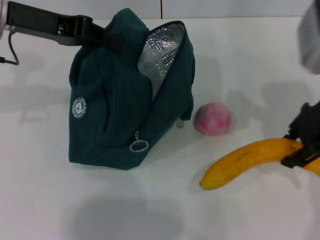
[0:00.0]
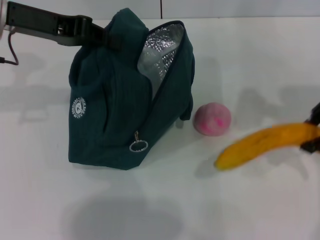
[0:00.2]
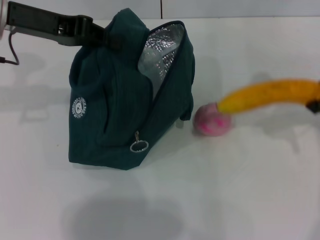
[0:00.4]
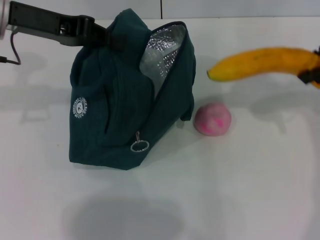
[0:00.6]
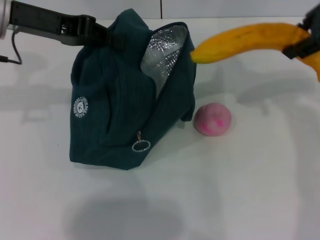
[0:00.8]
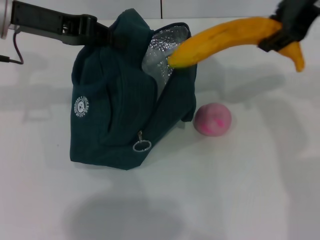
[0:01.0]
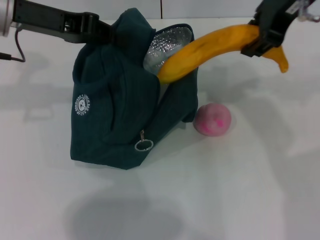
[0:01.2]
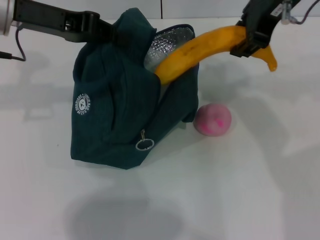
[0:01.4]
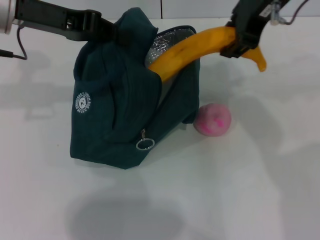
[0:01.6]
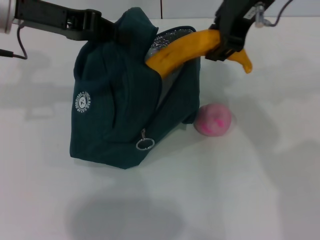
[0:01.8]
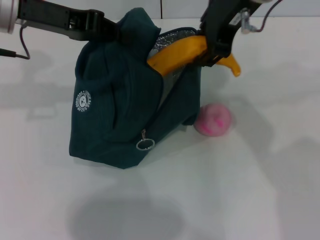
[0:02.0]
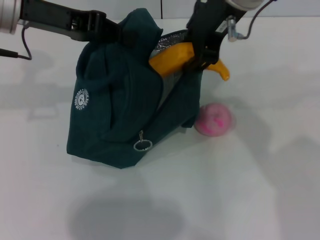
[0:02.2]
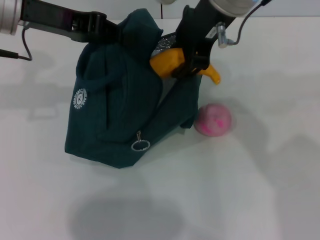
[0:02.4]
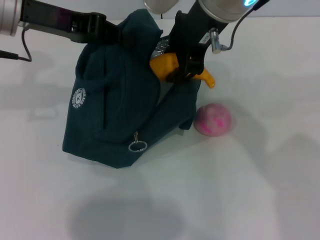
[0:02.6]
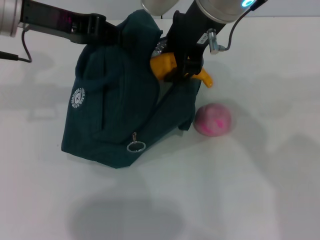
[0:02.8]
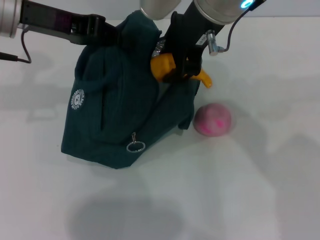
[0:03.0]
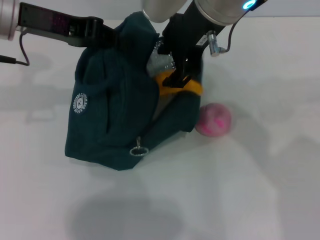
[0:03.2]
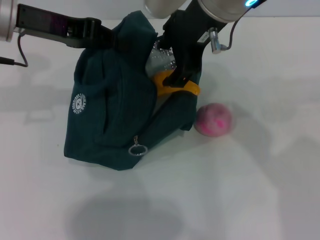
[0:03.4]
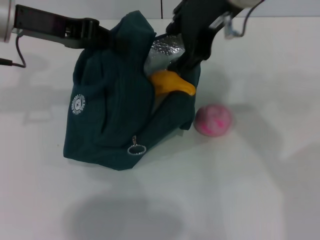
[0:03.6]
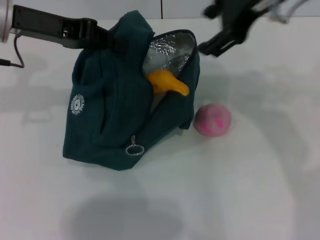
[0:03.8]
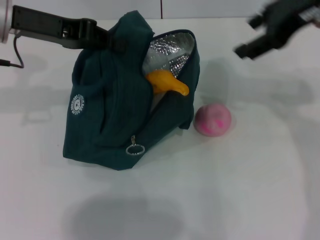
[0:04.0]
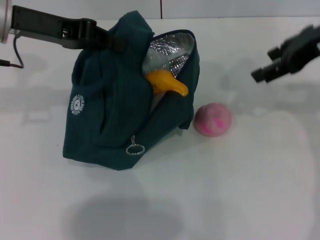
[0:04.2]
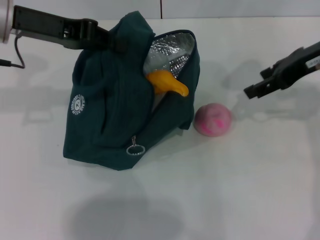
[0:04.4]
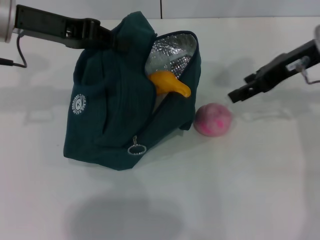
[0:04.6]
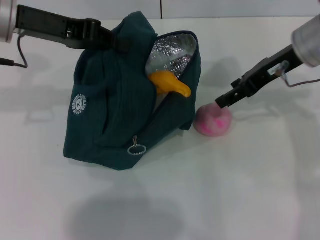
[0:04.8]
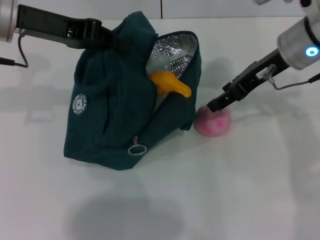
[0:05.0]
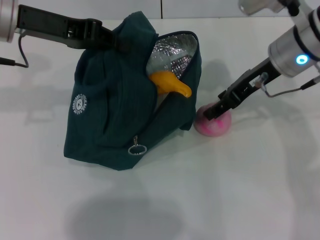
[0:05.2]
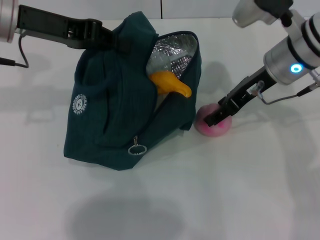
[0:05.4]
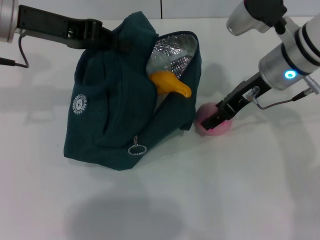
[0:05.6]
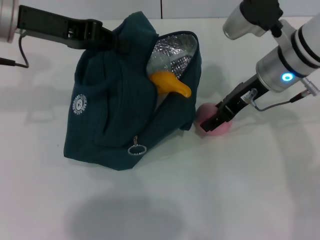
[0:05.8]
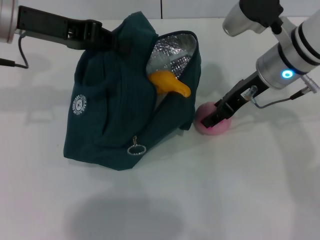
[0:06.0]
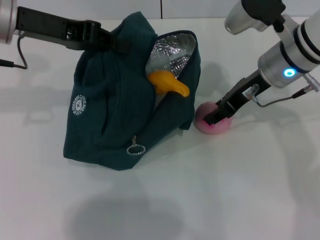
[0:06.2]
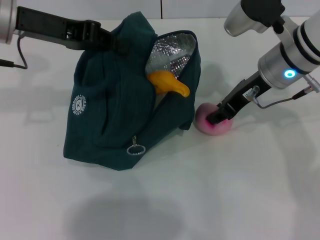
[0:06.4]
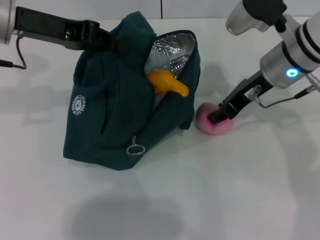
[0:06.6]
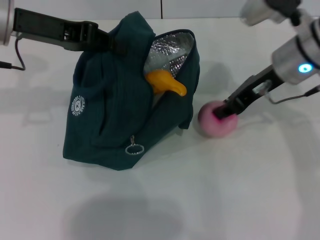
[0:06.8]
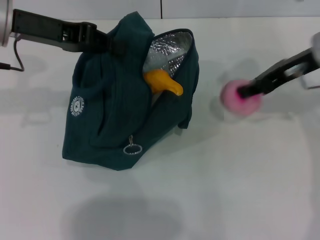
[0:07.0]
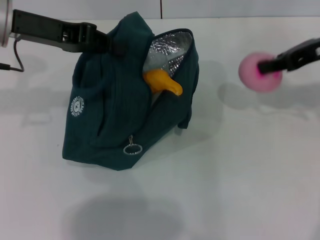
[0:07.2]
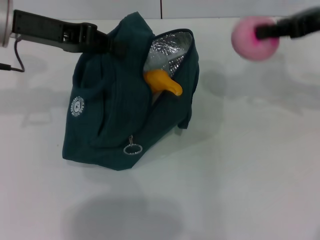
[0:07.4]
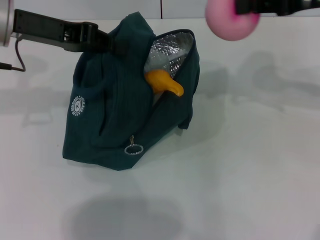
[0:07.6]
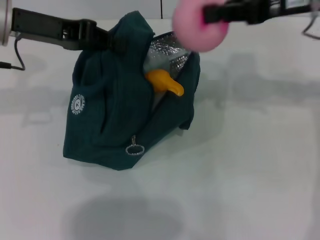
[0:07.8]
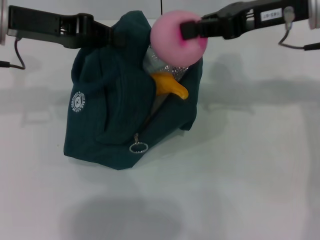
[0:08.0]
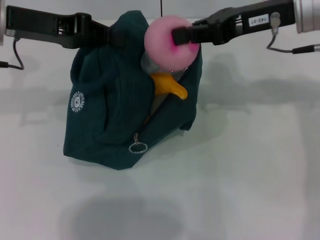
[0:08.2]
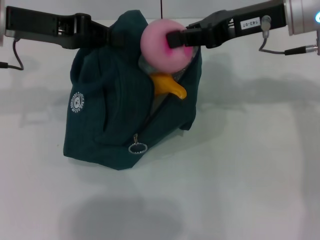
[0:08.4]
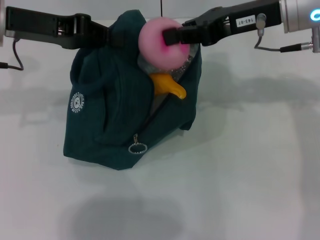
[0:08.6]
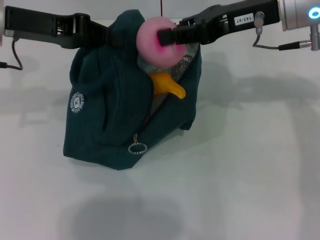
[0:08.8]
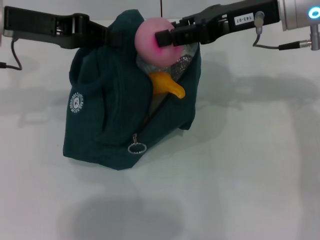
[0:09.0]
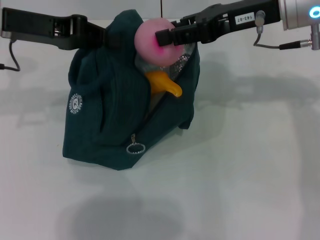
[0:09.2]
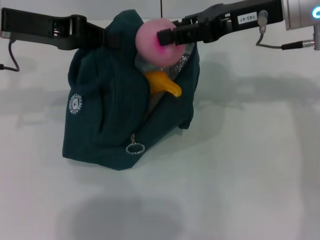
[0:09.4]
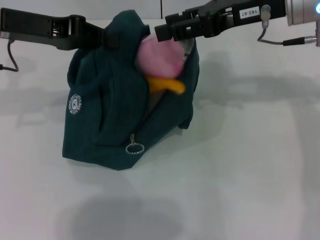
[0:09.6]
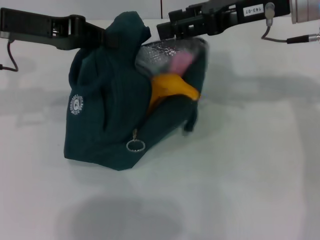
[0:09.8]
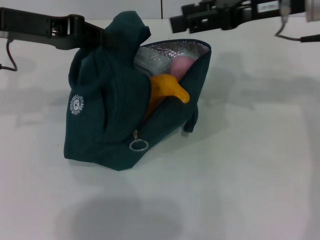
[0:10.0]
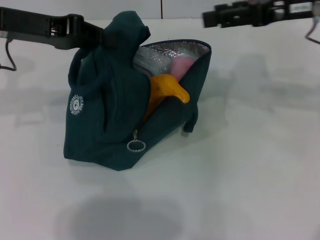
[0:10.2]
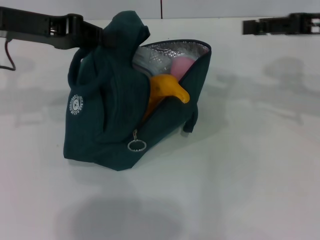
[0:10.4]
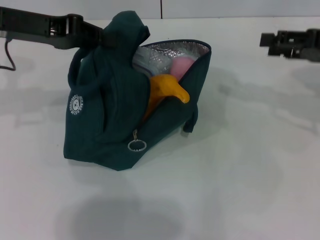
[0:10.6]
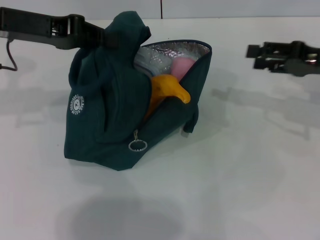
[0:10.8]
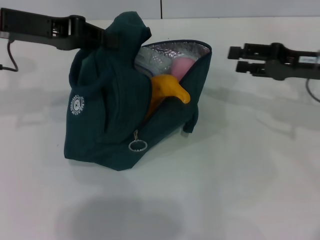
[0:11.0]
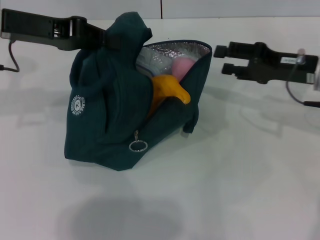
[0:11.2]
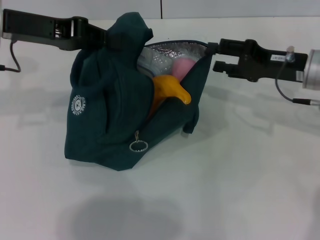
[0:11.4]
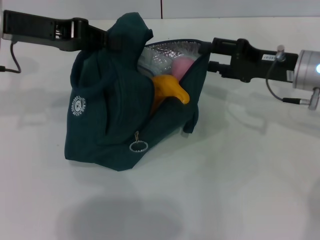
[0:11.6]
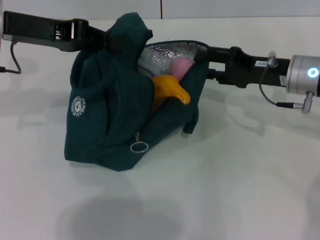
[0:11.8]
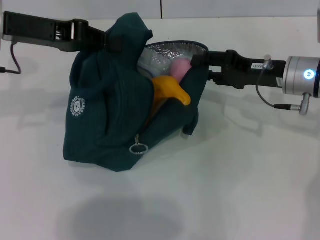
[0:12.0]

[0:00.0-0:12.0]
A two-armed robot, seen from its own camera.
Step, 0:00.0 to 0:03.4: Put the banana into the lunch bag with your right hand.
Step, 0:03.6 to 0:06.4: Grab the peach with your right hand.
0:00.0 to 0:01.6: The right gripper heads upward and to the left, covering some 15 cm.
0:01.6 to 0:03.0: The right gripper travels to the left by about 5 cm.
0:03.0 to 0:04.4: The right gripper is displaced to the right by roughly 20 cm.
0:04.4 to 0:06.0: The right gripper is displaced to the left and downward by about 10 cm.
0:06.0 to 0:07.6: The right gripper travels upward and to the right by about 15 cm, and closes.
0:07.6 to 0:09.0: The right gripper goes roughly 10 cm to the left.
0:09.0 to 0:10.4: The right gripper shifts some 10 cm to the right, and opens.
0:10.4 to 0:12.0: The right gripper heads downward and to the left, covering roughly 15 cm.

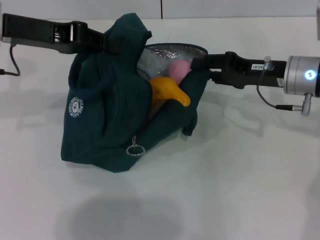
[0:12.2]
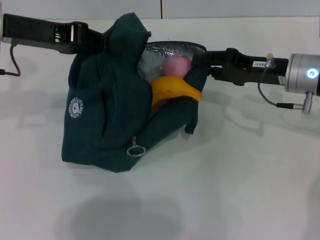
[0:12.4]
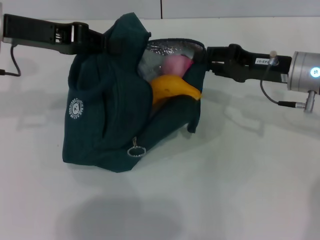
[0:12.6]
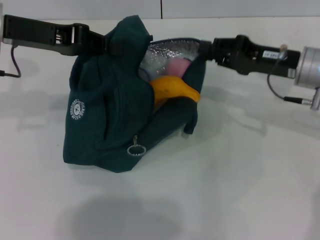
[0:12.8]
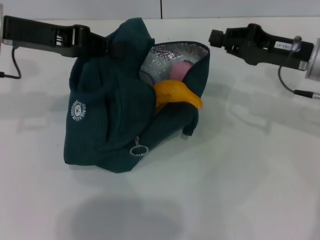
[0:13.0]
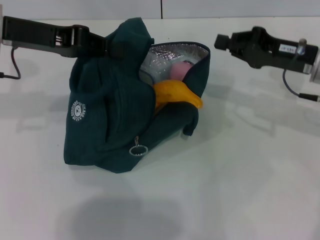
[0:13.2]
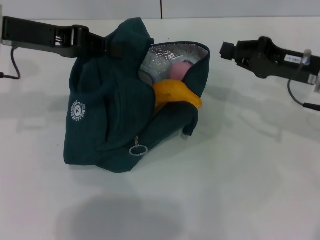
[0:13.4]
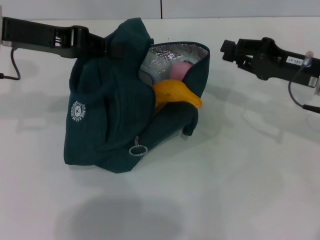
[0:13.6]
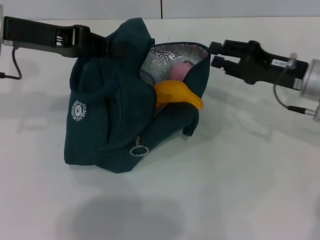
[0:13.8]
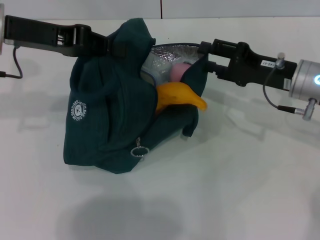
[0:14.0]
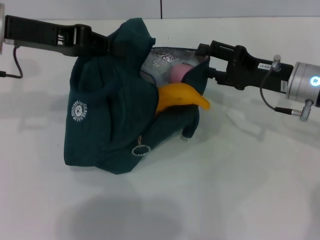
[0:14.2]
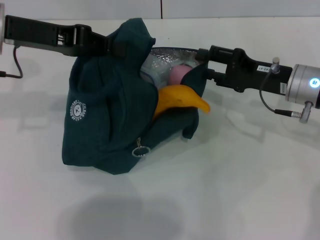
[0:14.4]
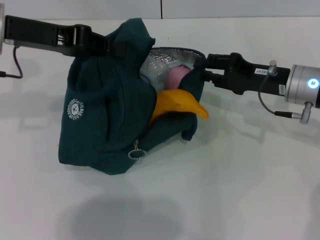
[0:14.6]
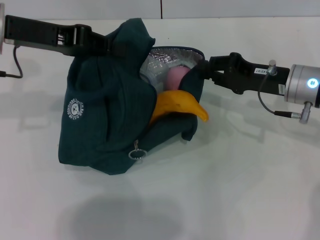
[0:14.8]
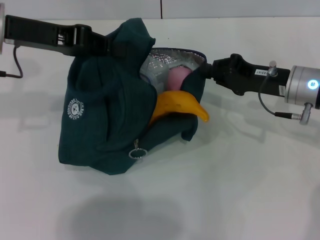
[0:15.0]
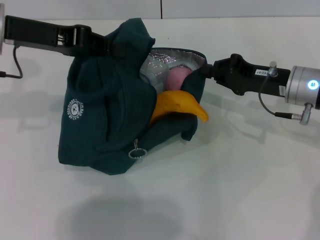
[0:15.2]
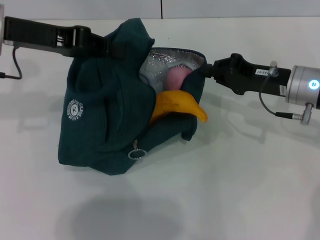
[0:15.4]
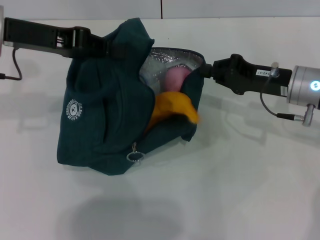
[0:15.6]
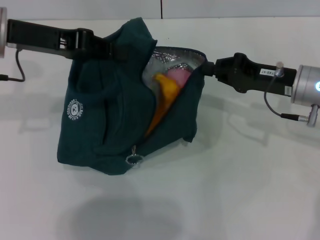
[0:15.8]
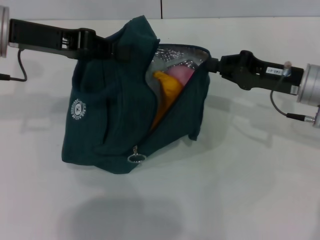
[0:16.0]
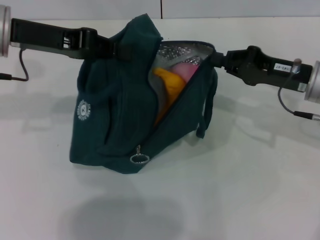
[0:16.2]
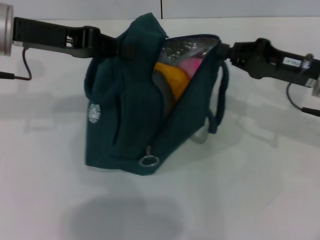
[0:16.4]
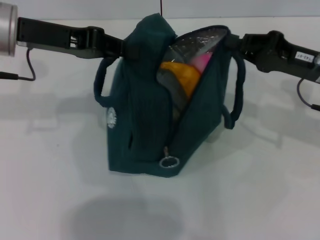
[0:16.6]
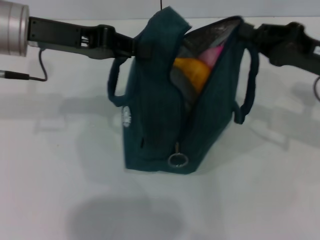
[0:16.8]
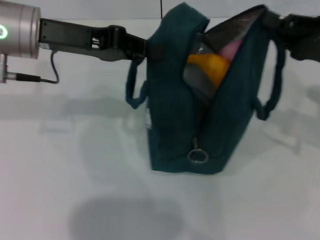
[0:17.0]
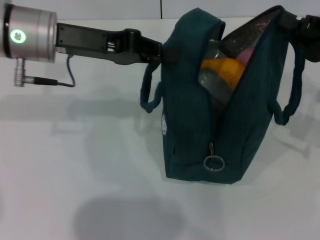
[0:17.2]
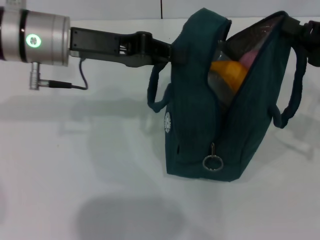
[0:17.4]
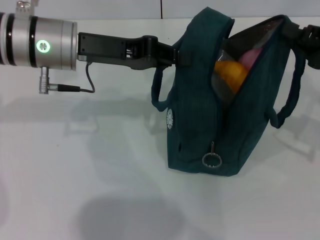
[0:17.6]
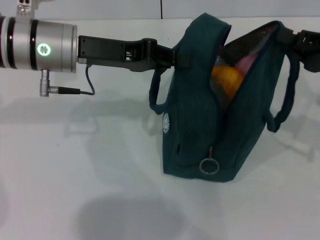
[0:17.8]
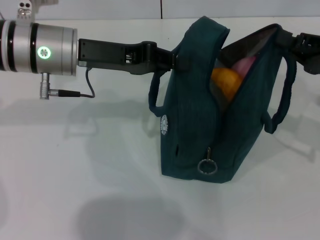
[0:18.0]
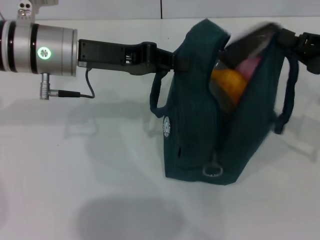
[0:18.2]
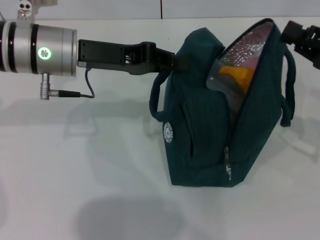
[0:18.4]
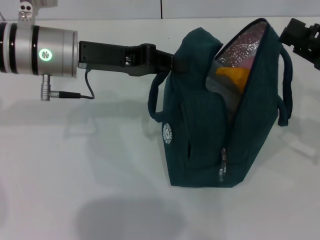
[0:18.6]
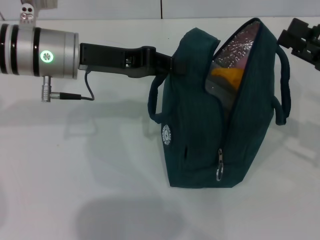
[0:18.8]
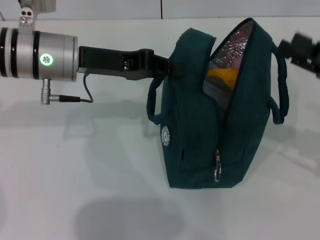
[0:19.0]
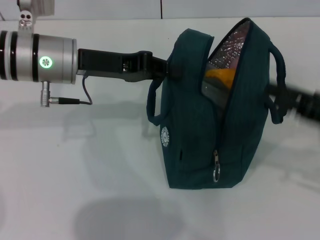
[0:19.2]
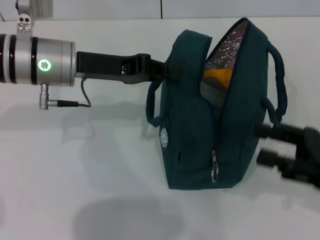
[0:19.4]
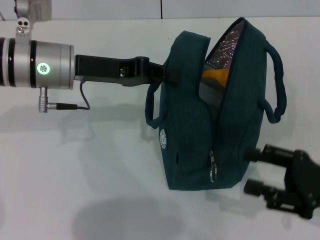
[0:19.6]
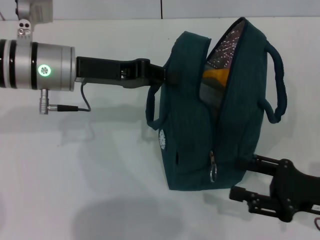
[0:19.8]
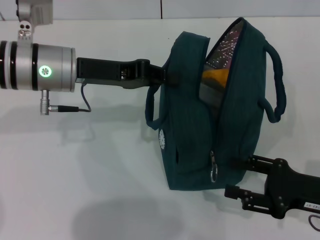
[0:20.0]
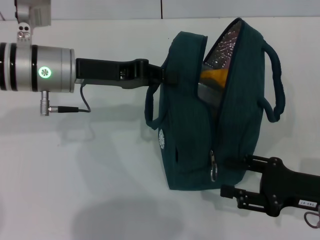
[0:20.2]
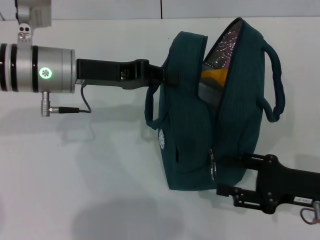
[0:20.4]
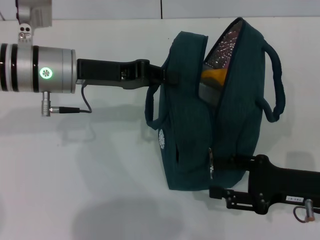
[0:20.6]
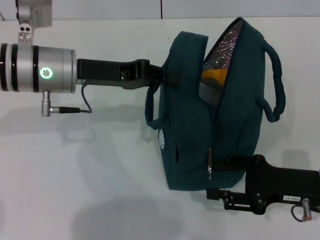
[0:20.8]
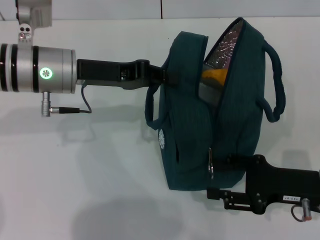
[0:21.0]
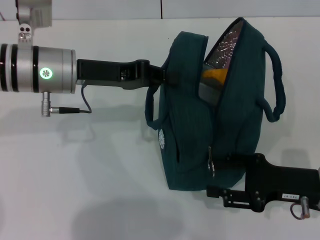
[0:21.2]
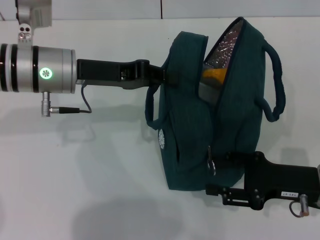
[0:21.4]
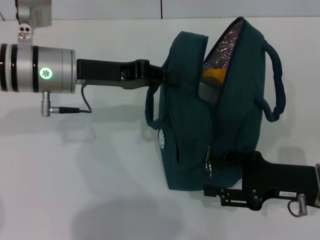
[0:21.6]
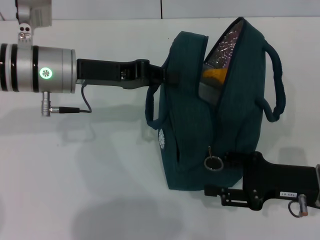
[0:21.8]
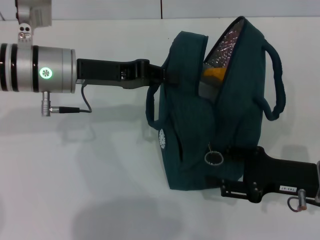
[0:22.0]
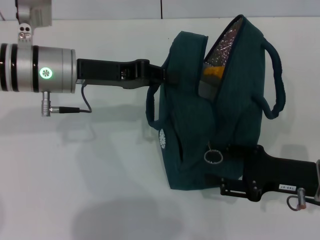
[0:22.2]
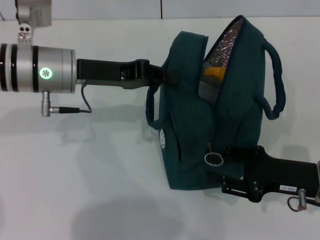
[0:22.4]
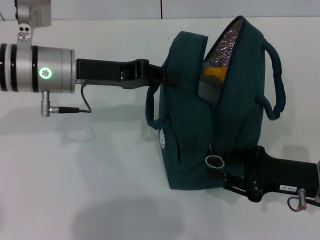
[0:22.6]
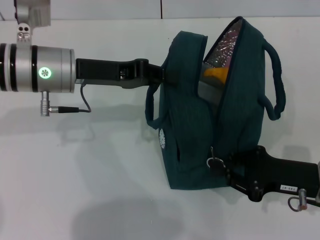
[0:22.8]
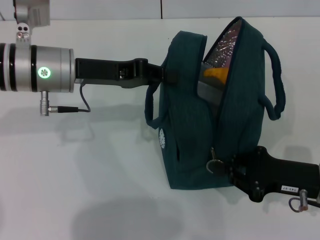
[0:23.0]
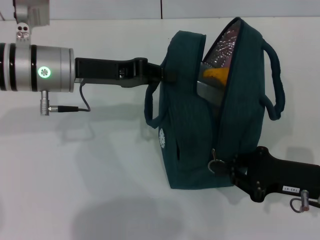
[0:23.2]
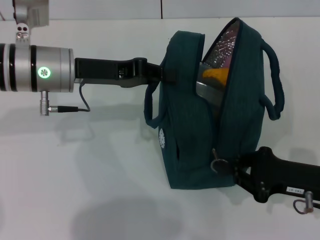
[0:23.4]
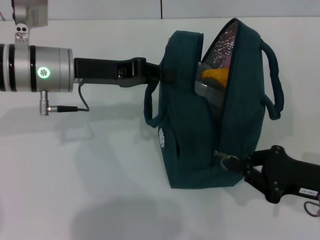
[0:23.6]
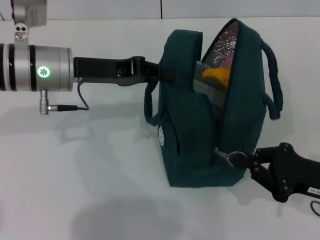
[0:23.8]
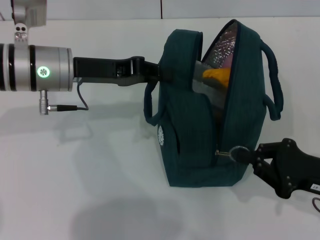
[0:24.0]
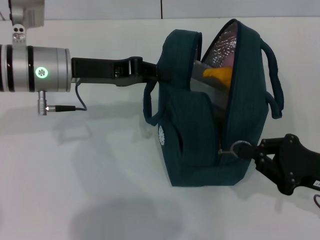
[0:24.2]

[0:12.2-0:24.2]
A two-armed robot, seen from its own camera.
Step, 0:12.2 to 0:18.6: Hold the lunch bag with your right hand.
0:12.2 to 0:13.8: The right gripper closes.
0:13.8 to 0:15.2: The right gripper opens and closes again.
0:15.2 to 0:16.6: The right gripper ends up approximately 5 cm from where it was.
0:16.6 to 0:18.2: Both grippers travel together to the right, roughly 5 cm.
0:18.2 to 0:19.8: The right gripper moves backward and downward, approximately 15 cm, and opens up.
0:19.8 to 0:21.2: The grippers stay close to where they were, moving slightly.
0:21.2 to 0:22.6: Neither gripper changes place.
0:22.6 to 0:24.2: The right gripper closes its fingers.
